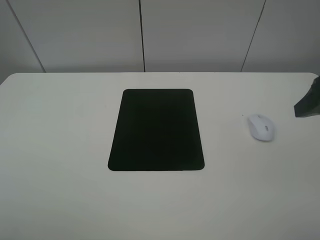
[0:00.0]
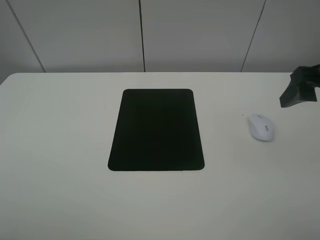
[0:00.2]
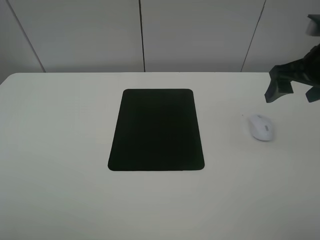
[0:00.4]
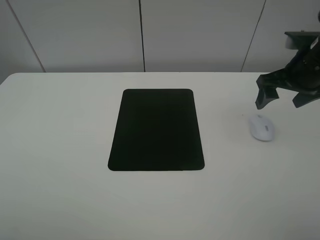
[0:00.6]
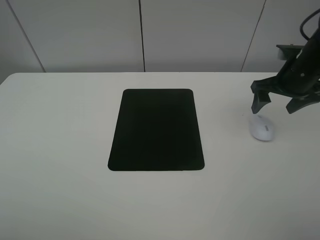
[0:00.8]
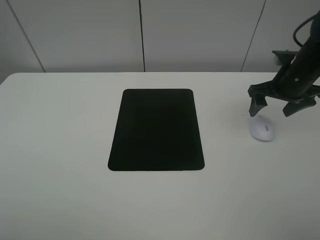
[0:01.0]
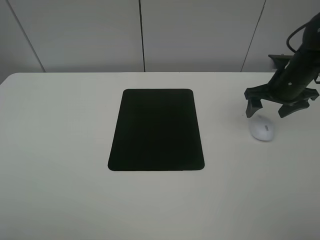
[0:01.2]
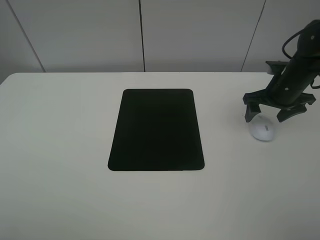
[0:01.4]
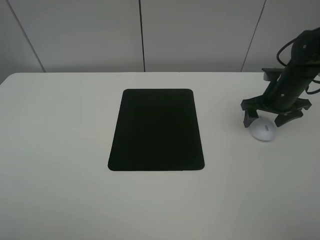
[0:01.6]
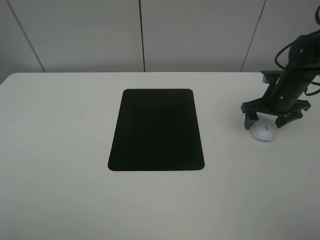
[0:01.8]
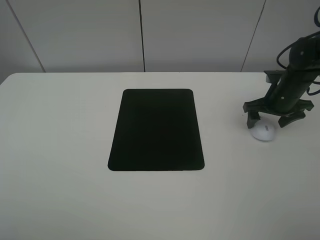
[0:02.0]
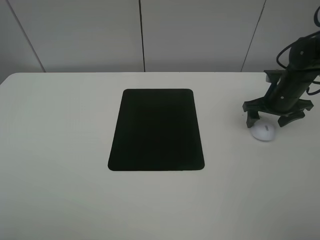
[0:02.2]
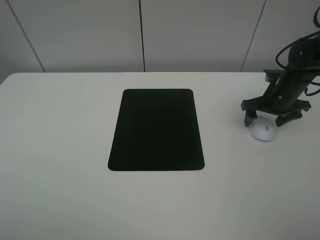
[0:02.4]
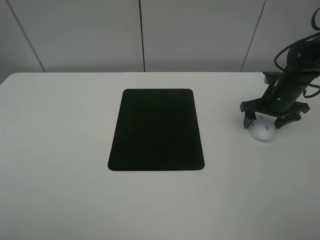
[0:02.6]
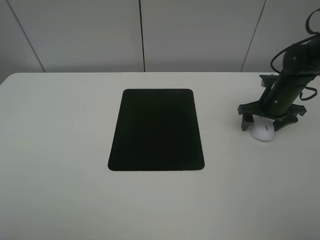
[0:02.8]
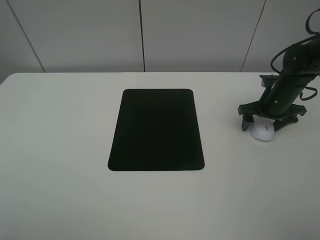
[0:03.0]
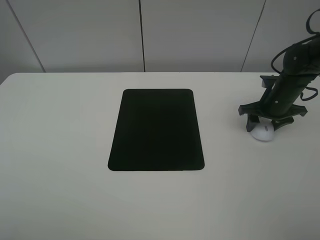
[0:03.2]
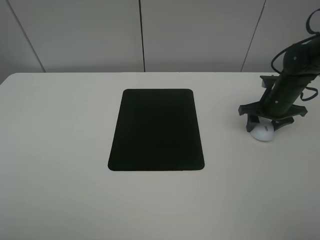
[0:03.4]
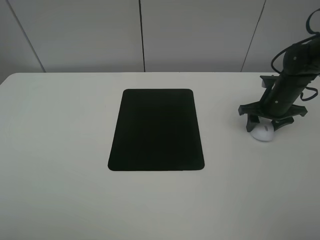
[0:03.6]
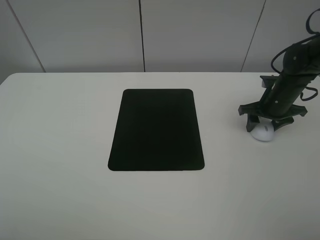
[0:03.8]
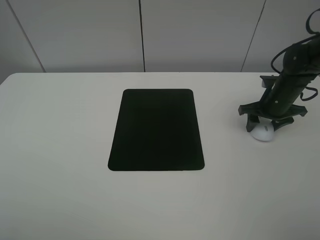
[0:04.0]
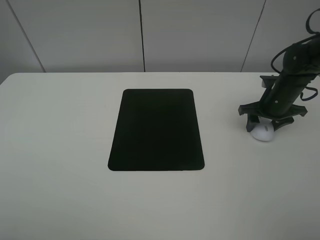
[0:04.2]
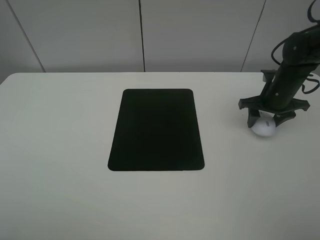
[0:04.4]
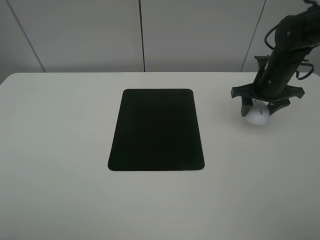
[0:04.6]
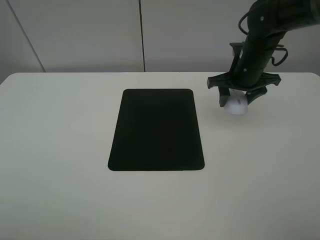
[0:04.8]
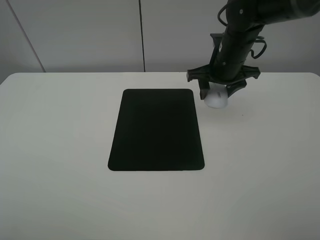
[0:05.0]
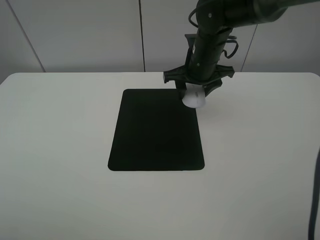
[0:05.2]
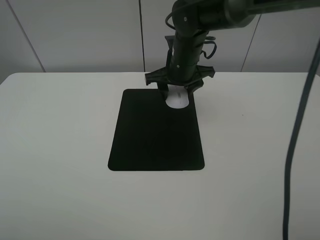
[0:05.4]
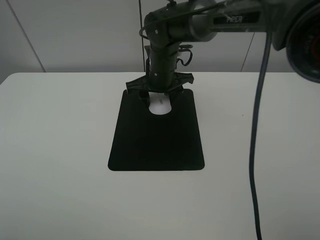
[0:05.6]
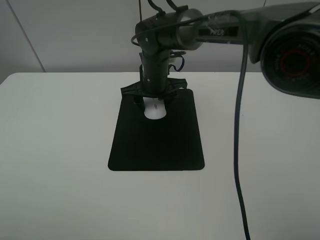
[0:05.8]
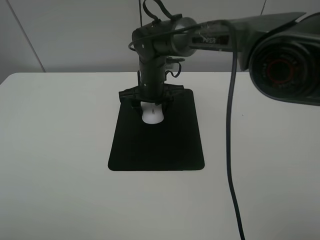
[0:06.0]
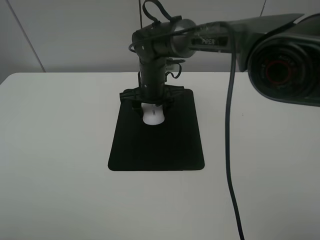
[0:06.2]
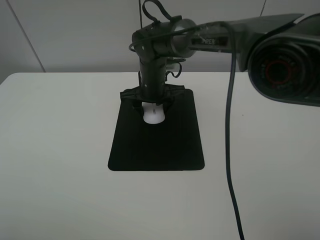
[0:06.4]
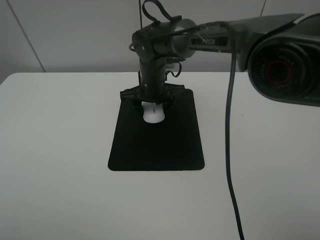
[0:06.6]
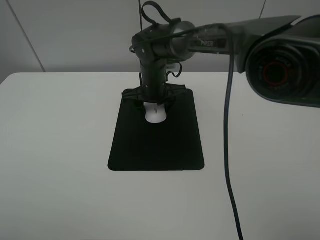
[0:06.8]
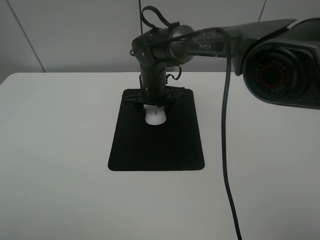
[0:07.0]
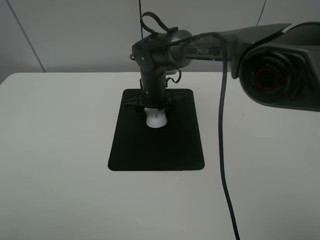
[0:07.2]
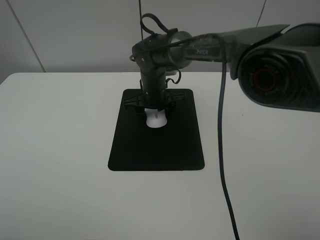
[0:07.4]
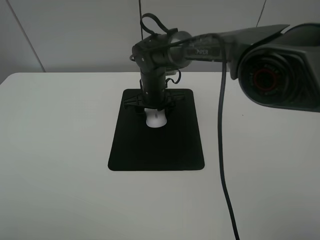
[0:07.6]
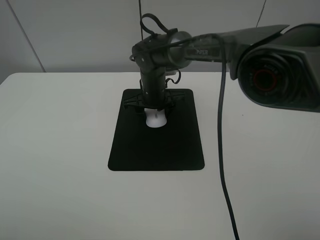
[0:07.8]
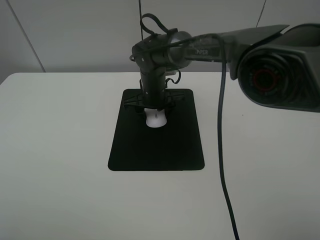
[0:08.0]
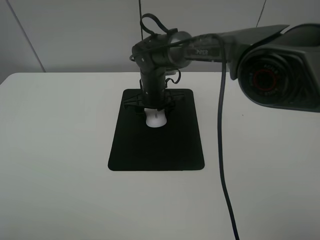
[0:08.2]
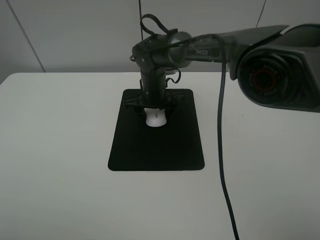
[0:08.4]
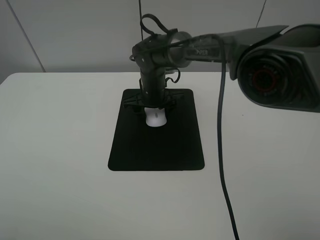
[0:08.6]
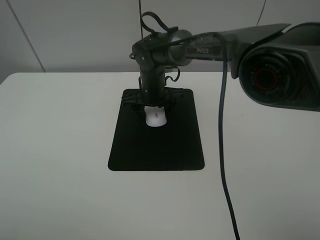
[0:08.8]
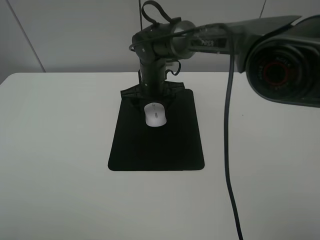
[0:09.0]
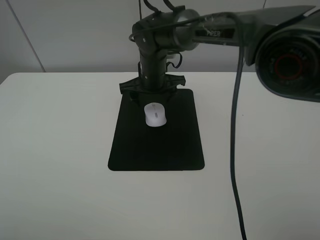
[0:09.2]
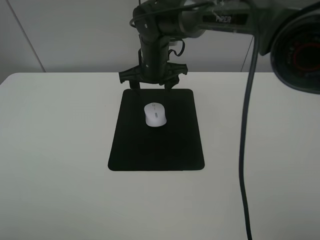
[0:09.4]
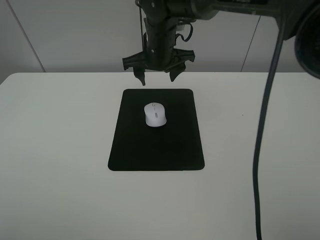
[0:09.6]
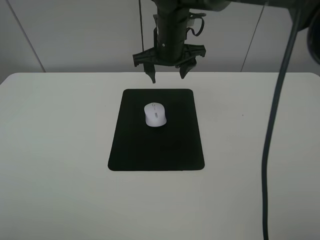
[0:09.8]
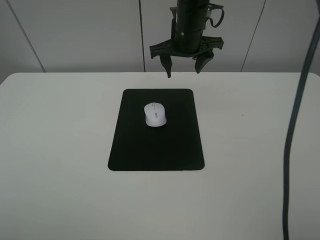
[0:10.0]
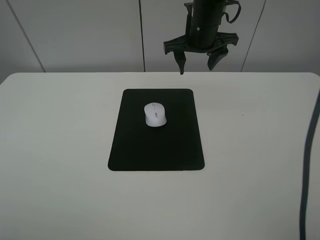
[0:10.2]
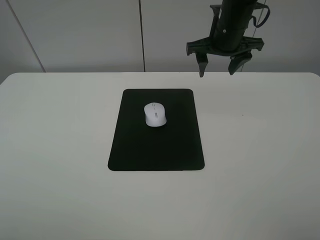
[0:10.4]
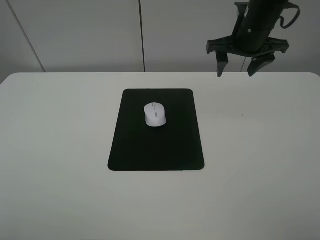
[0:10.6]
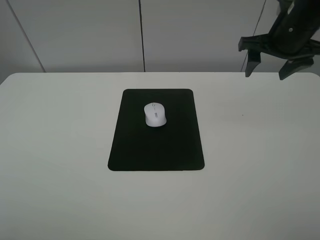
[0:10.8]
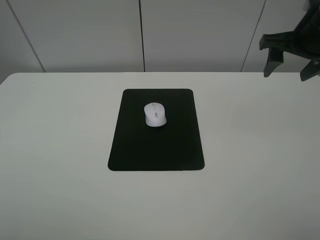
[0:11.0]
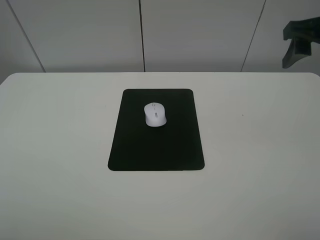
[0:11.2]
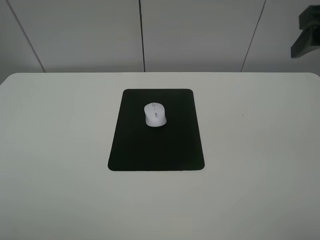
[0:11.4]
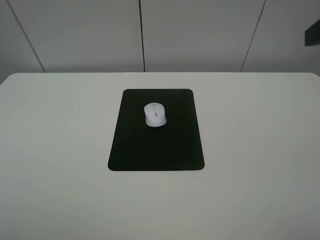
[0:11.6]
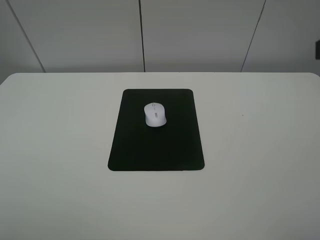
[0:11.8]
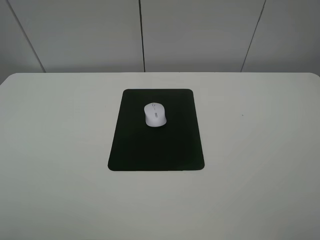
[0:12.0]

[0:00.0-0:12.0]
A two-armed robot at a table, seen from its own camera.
Step, 0:00.0 to 0:03.8: Grasp the mouse with the right gripper.
Step, 0:04.0 to 0:08.0: Place the mouse on the mouse mat with the right gripper.
0:00.0 to 0:01.6: The right gripper travels forward and downward by approximately 25 cm.
0:01.6 to 0:03.0: The grippers make only small movements.
0:03.0 to 0:04.4: The right gripper closes.
0:04.4 to 0:06.0: The right gripper shifts approximately 30 cm to the left.
0:06.0 to 0:07.6: The grippers move only a little.
0:07.6 to 0:09.0: The right gripper opens its fingers.
0:09.0 to 0:10.4: The right gripper travels to the right and upward by roughly 20 cm.
0:10.4 to 0:12.0: The right gripper travels backward by approximately 30 cm.

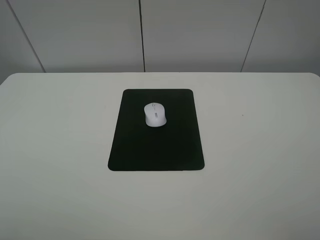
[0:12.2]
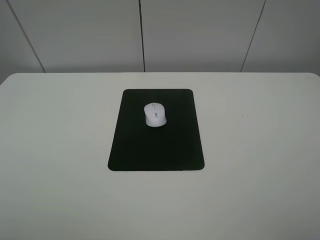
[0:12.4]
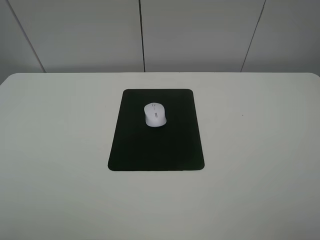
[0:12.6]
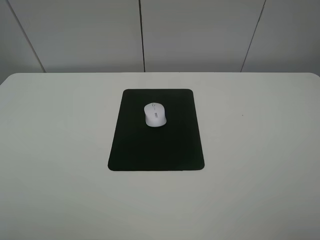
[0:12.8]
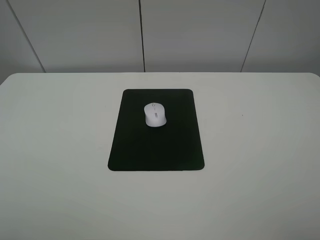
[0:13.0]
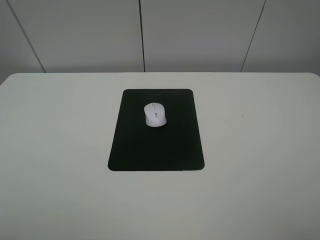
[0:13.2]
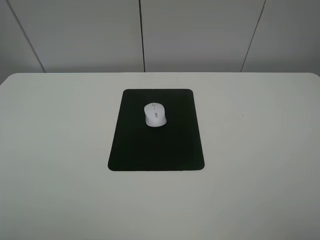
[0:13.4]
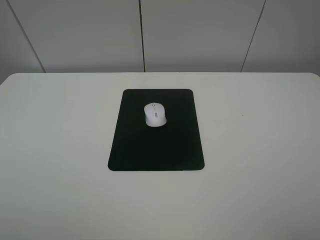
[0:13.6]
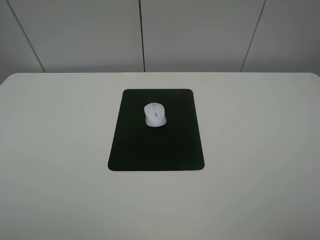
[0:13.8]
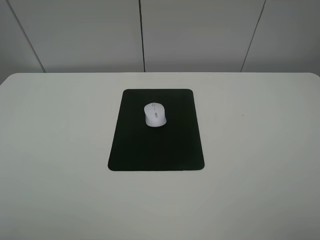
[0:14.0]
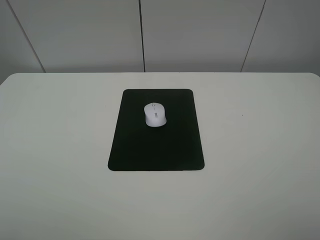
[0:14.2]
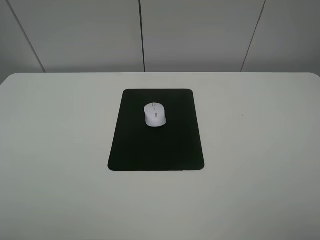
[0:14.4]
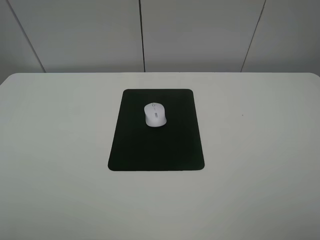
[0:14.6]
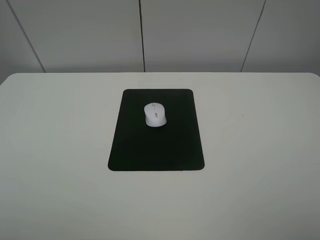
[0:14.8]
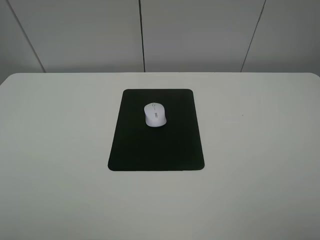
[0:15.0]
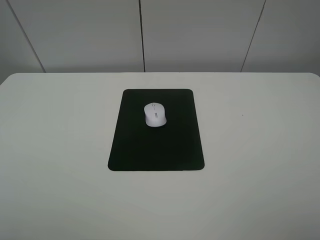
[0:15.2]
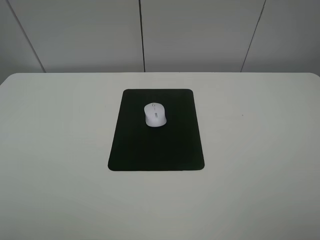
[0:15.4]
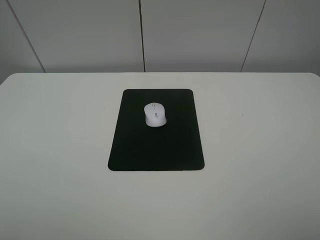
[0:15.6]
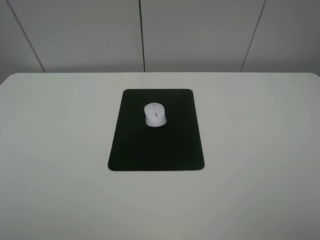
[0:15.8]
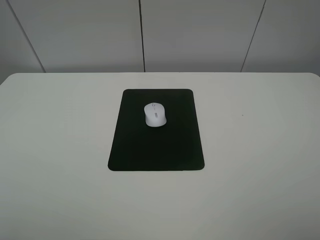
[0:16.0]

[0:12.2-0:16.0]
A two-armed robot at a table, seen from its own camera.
0:14.8 to 0:16.0: Neither gripper changes place.
